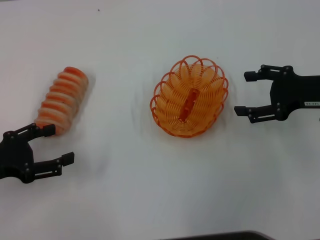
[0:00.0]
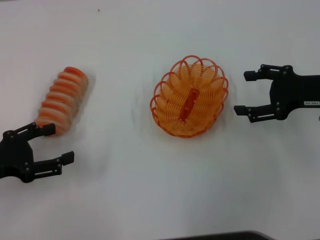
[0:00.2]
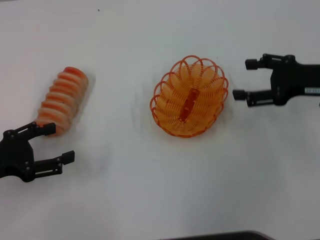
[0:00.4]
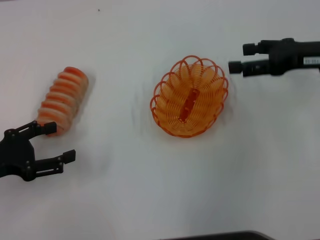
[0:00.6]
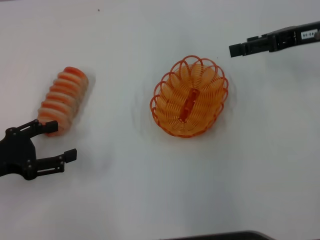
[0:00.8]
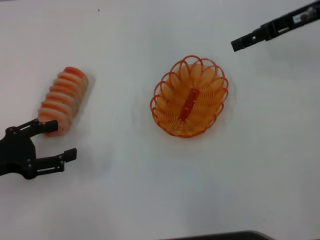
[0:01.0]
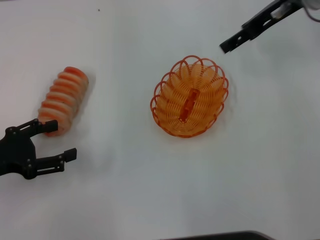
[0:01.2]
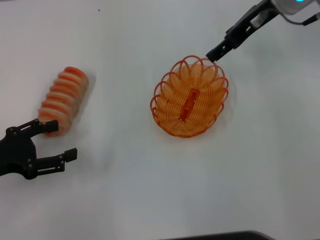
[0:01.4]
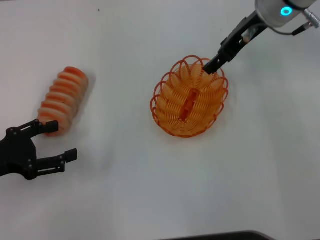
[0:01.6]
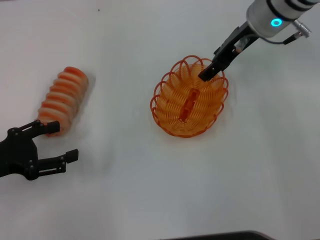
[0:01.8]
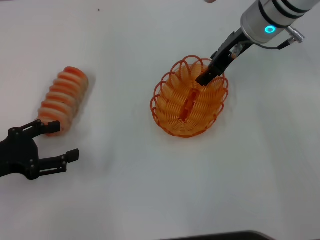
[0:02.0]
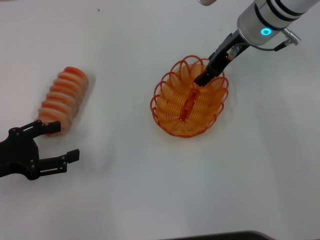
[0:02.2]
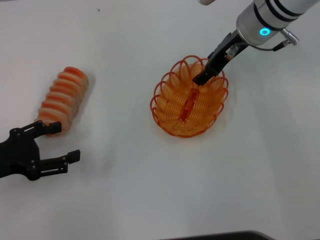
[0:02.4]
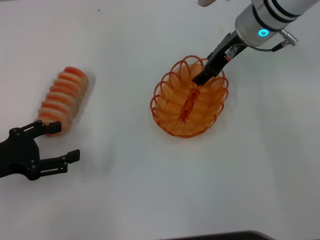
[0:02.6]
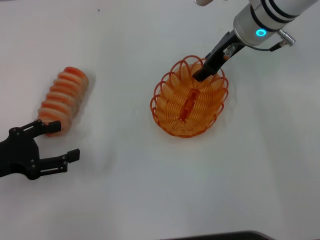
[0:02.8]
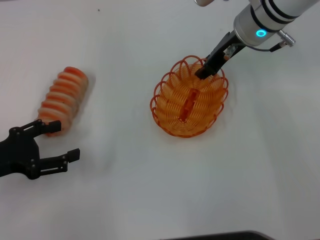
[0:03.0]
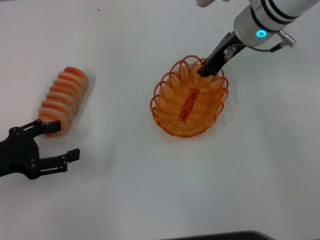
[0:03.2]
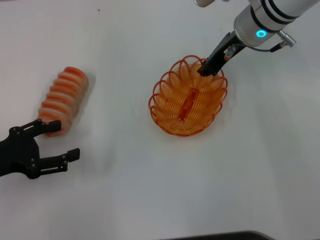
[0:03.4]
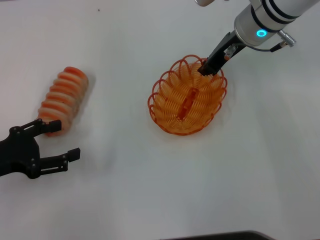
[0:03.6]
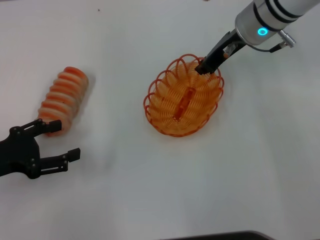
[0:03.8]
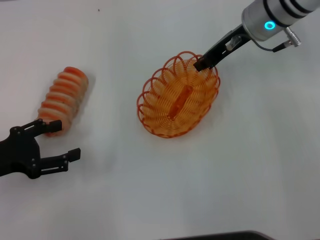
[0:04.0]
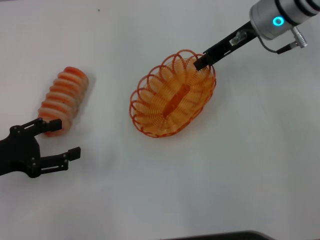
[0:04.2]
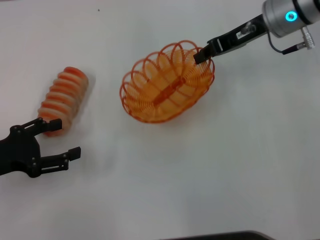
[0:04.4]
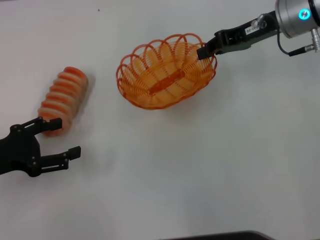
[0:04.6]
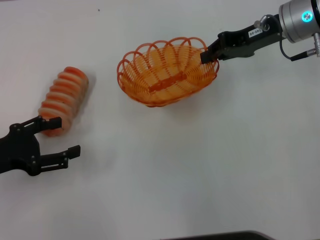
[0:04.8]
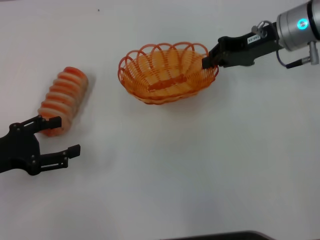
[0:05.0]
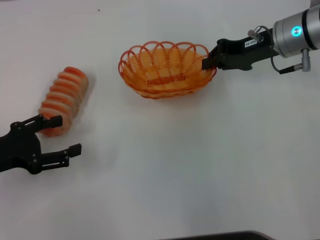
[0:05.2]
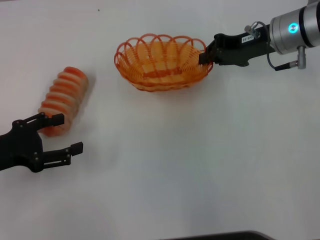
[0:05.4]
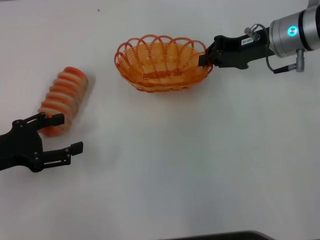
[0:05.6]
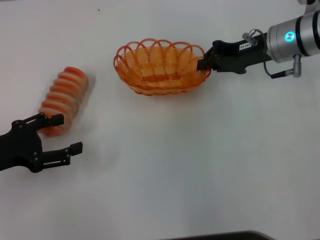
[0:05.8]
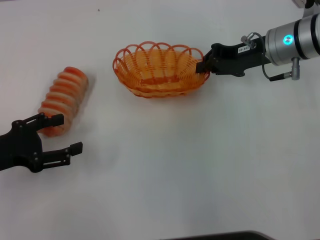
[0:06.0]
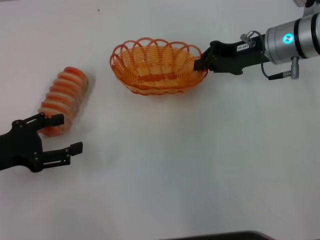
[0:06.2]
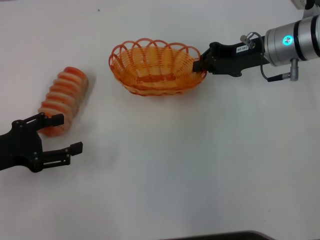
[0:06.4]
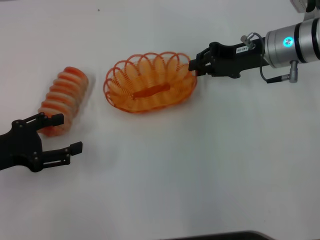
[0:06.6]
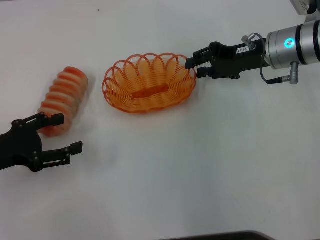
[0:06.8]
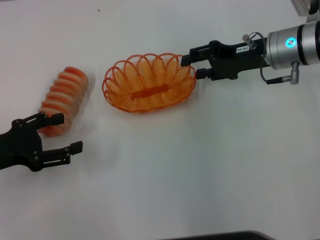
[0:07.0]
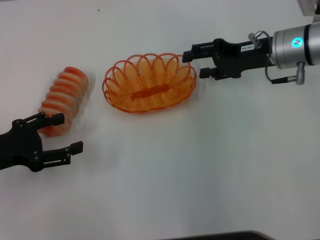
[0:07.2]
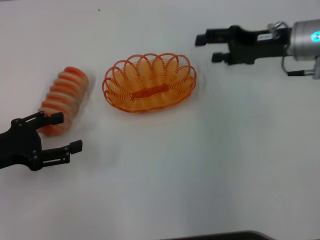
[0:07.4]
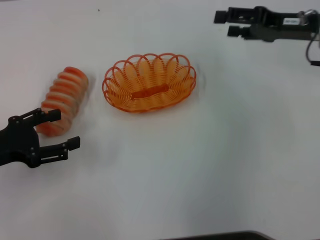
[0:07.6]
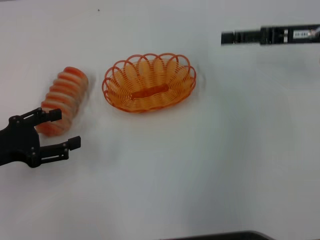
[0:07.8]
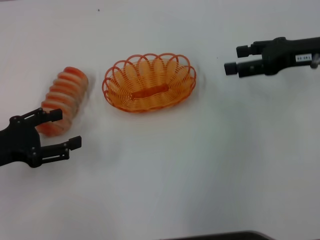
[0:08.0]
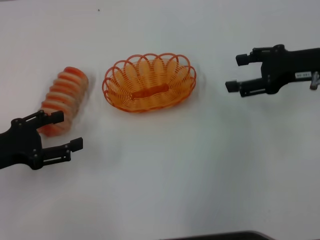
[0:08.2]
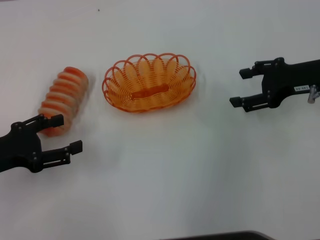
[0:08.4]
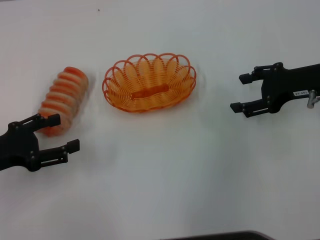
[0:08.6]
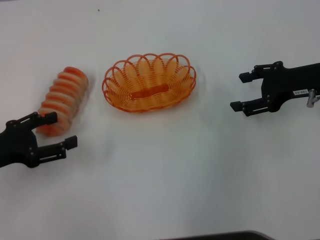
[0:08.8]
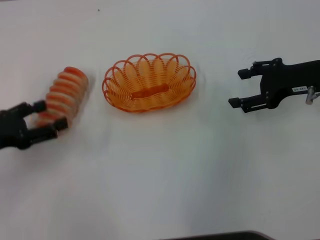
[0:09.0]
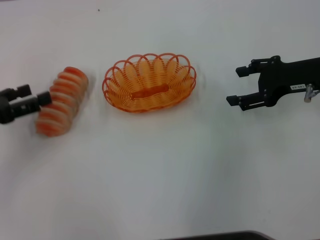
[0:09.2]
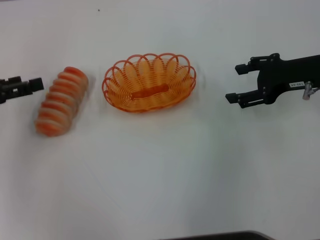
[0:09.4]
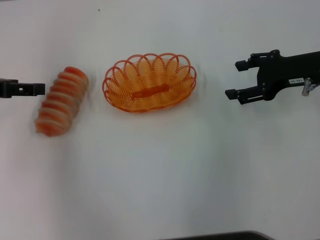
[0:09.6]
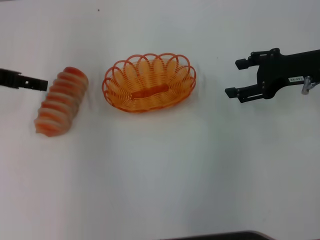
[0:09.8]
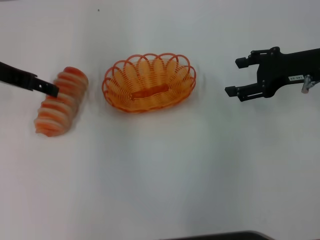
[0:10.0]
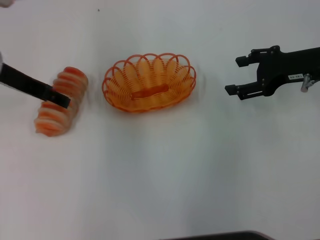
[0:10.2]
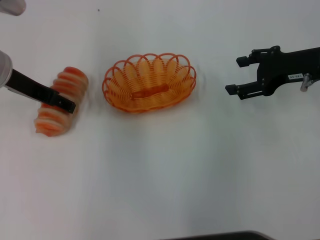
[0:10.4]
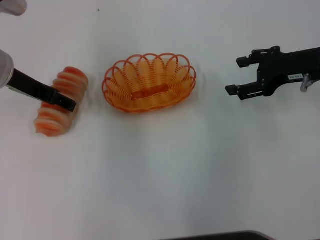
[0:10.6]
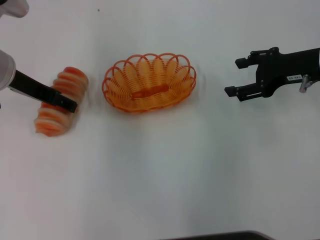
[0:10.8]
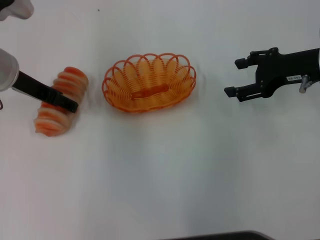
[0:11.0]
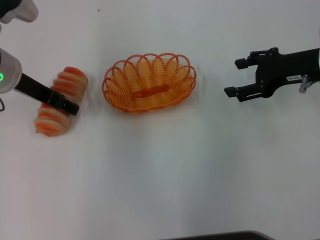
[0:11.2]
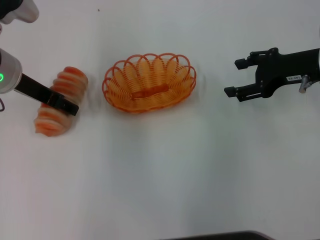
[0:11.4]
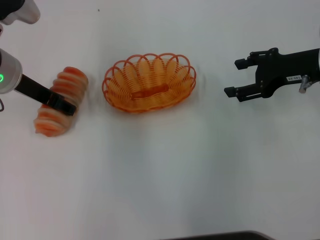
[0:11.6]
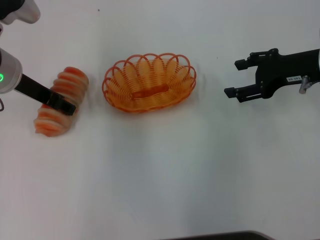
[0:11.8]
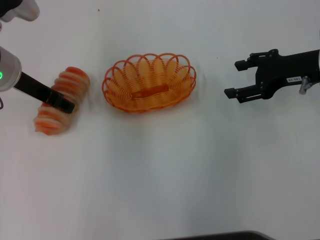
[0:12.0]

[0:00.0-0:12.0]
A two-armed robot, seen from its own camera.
Step, 0:00.0 to 0:04.4: Pick up the basket with the right gripper.
Step, 0:04.8 to 0:07.0: Place the basket in the center of view with the right gripper.
0:00.0 to 0:01.6: The right gripper shifts roughly 20 cm forward, to the left and upward.
0:01.6 to 0:03.0: The right gripper closes.
0:03.0 to 0:04.4: The right gripper shifts by about 5 cm, and closes.
0:04.4 to 0:06.0: The right gripper changes place by roughly 5 cm.
0:06.0 to 0:07.6: The right gripper heads to the right, covering roughly 5 cm, and opens.
0:09.0 to 0:10.4: The left gripper is displaced forward, to the right and upward by about 20 cm.
0:10.4 to 0:12.0: The grippers stay close to where they were, moving slightly.

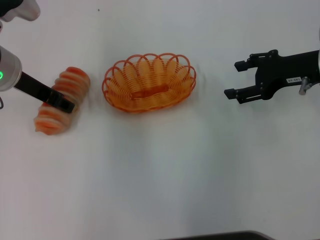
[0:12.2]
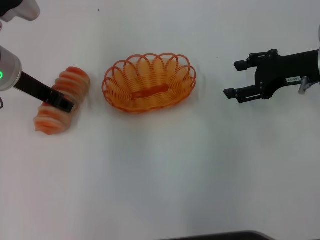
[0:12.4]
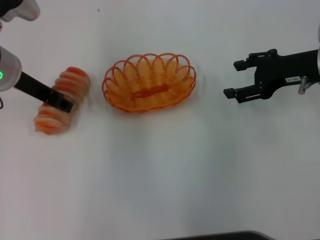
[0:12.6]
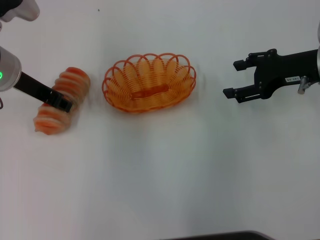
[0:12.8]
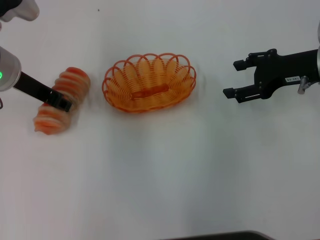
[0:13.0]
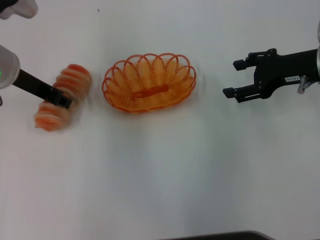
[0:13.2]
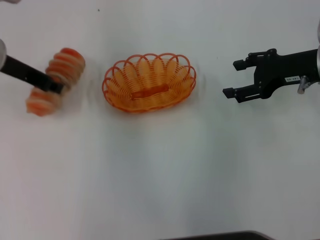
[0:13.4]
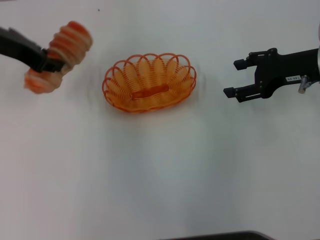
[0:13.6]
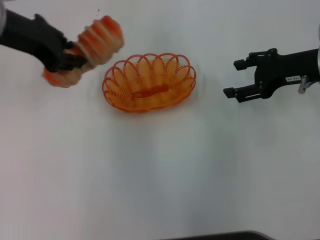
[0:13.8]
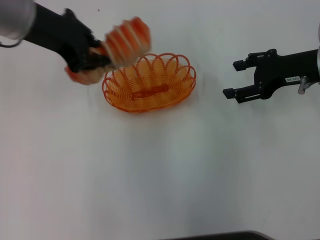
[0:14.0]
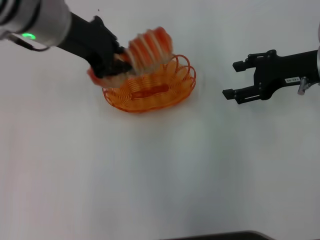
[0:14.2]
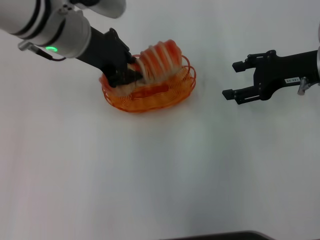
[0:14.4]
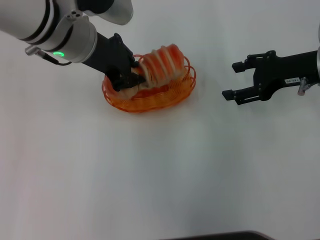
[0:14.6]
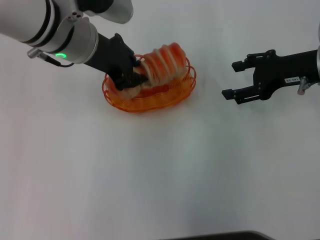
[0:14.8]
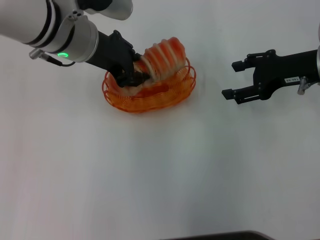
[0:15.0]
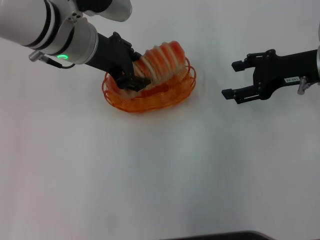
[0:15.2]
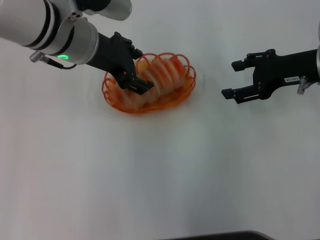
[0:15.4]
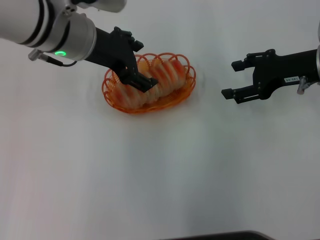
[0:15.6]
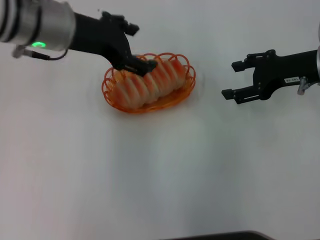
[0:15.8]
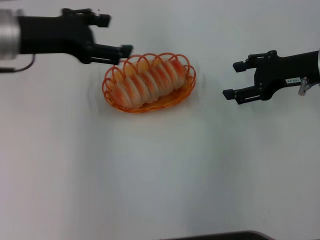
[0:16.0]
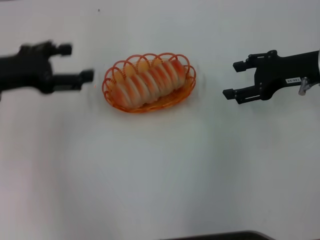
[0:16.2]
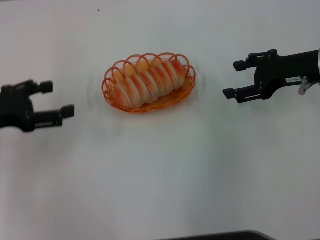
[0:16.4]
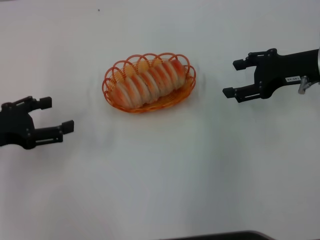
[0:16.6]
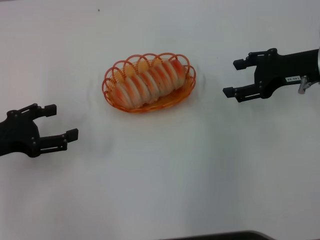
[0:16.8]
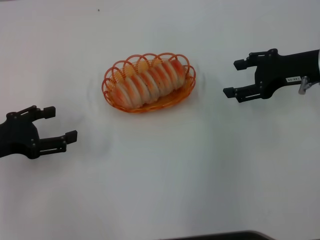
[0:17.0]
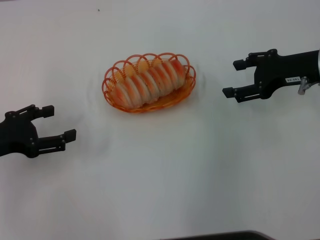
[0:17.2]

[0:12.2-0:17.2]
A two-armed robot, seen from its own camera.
Step, 0:14.0 to 0:15.6: Place the long bread into the basket with the left gripper.
0:12.2 to 0:13.8: The left gripper shifts some 10 cm upward, and closes up.
0:13.8 to 0:15.6: The left gripper is displaced to the right by approximately 10 cm, and opens.
0:15.6 to 0:17.2: The left gripper goes about 25 cm to the left, backward and downward.

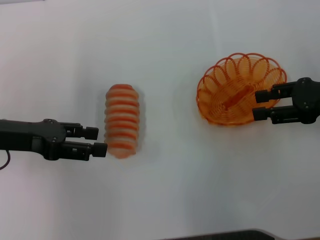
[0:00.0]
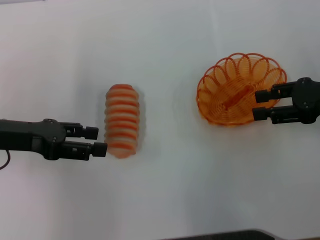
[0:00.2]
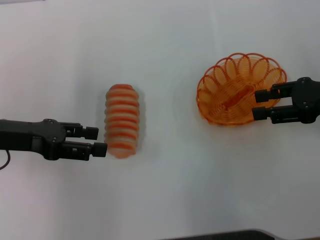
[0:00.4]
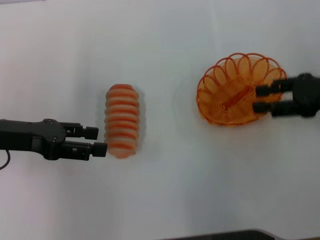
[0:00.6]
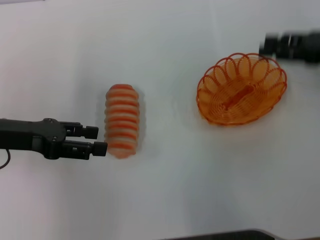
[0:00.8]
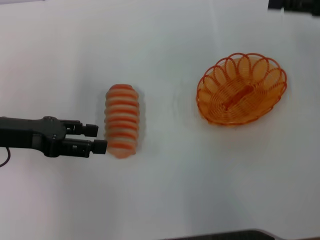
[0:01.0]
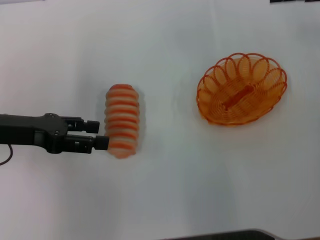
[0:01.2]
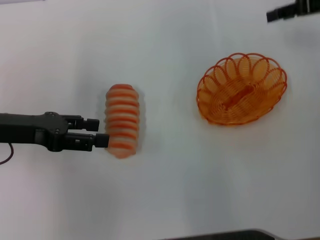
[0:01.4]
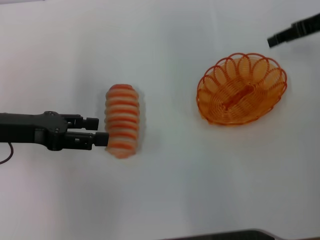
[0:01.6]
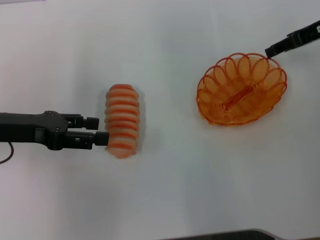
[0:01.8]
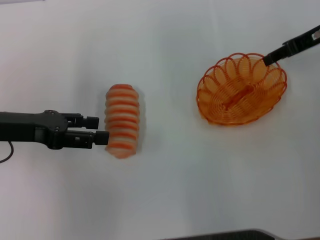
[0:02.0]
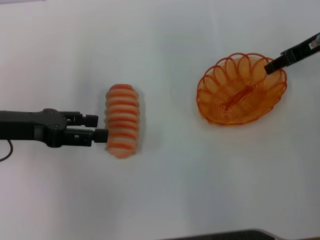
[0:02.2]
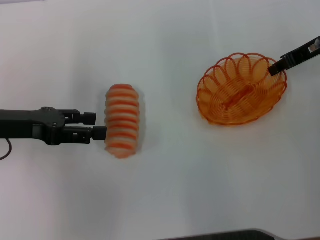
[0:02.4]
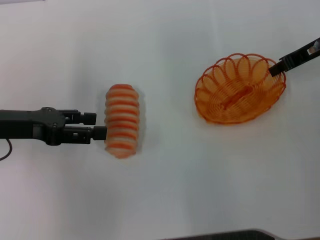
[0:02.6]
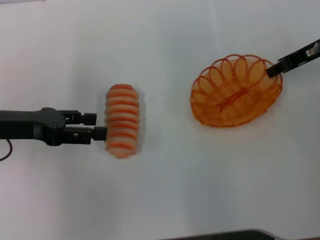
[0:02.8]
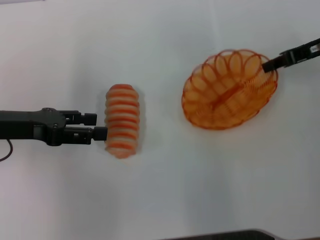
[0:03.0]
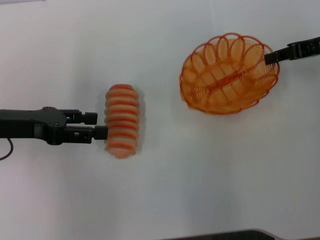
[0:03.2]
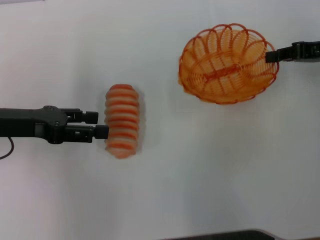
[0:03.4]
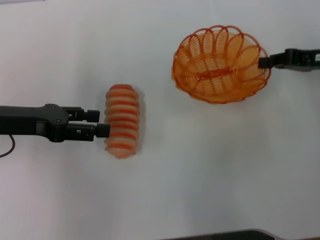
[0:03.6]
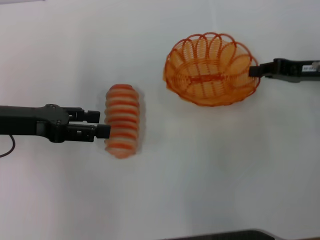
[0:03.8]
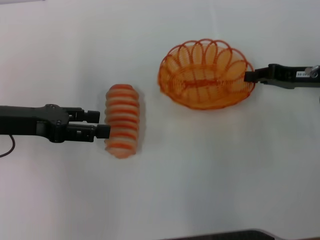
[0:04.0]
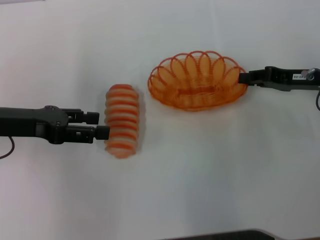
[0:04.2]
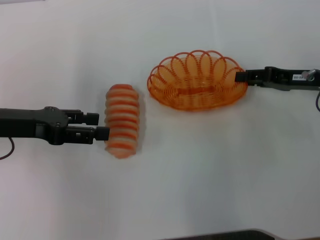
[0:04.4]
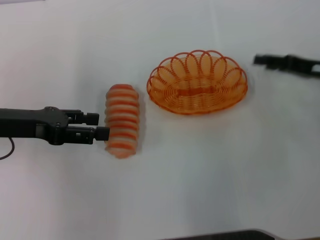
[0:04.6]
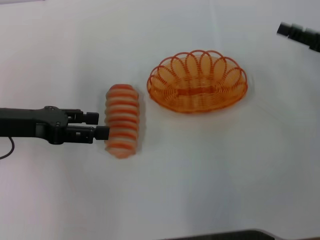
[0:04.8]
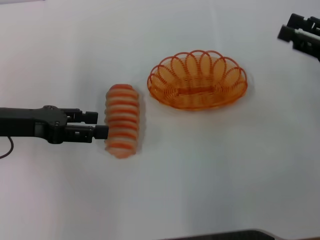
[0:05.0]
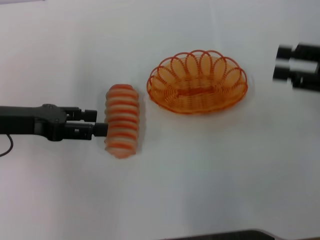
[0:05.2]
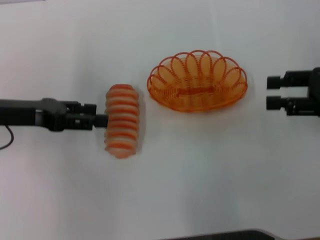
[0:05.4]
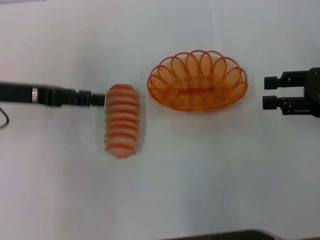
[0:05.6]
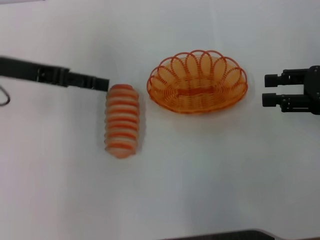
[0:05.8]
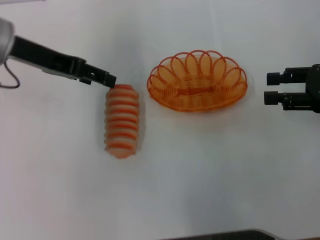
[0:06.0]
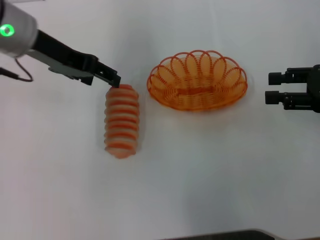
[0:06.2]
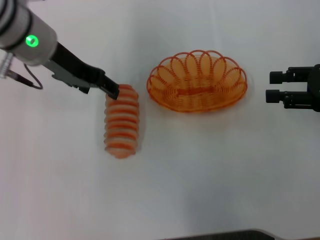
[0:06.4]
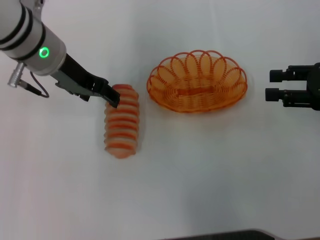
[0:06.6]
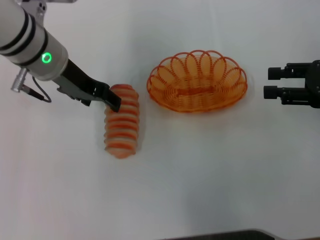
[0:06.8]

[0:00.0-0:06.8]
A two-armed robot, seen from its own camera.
Step, 0:00.0 to 0:02.8: Pick up the basket with the right gripper.
Step, 0:03.2 to 0:04.4: Place the basket in the center of view with the right gripper.
0:00.0 to 0:01.4: The right gripper heads forward and upward, covering some 15 cm.
0:01.4 to 0:02.8: The right gripper moves about 5 cm, and closes.
0:02.8 to 0:04.0: The right gripper shifts approximately 10 cm backward and downward.
0:04.0 to 0:05.4: The right gripper moves backward and upward, roughly 5 cm, and opens its fingers.
0:05.4 to 0:06.8: The left gripper moves to the right and forward, roughly 15 cm.
